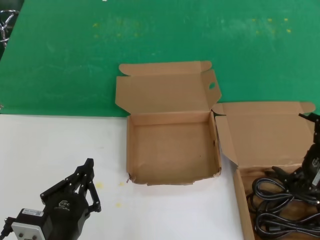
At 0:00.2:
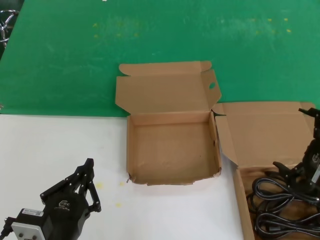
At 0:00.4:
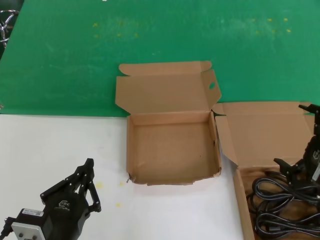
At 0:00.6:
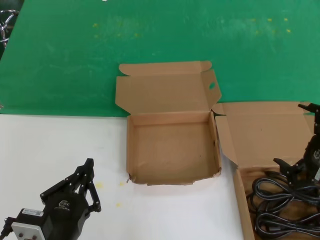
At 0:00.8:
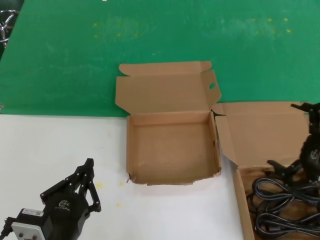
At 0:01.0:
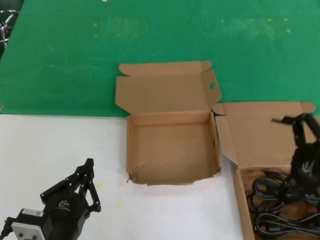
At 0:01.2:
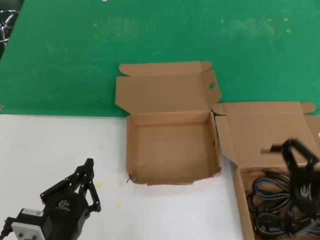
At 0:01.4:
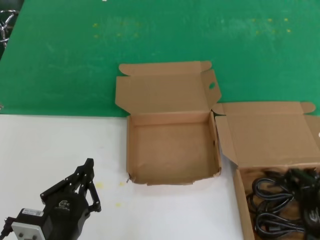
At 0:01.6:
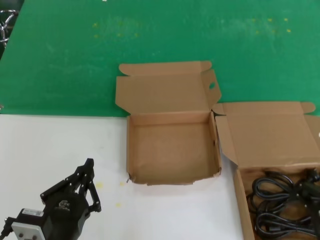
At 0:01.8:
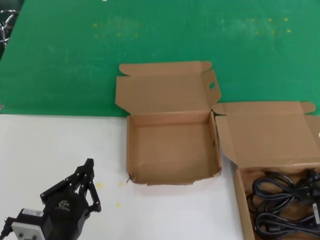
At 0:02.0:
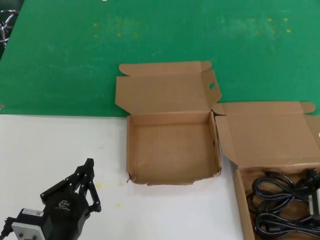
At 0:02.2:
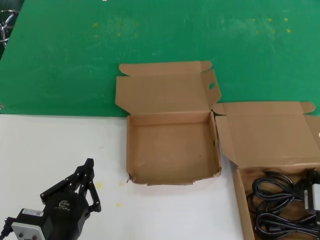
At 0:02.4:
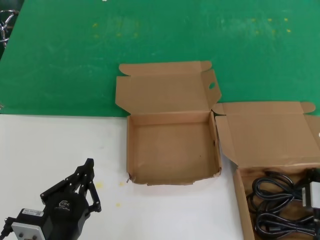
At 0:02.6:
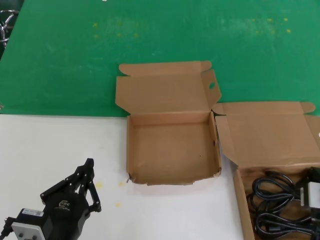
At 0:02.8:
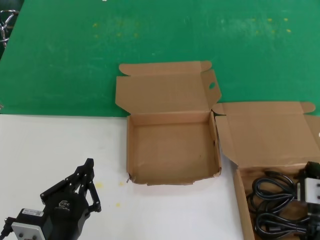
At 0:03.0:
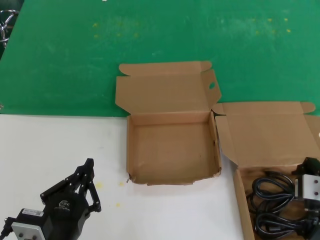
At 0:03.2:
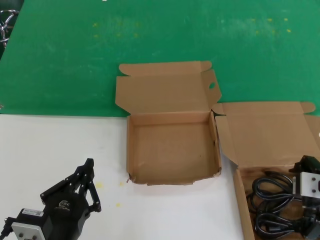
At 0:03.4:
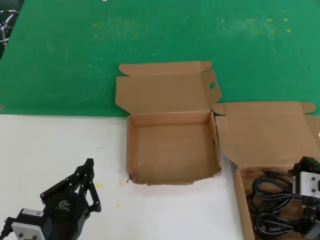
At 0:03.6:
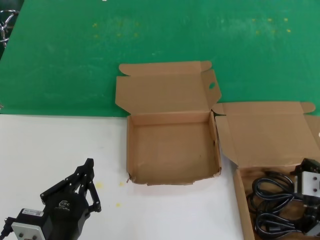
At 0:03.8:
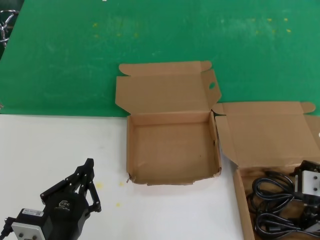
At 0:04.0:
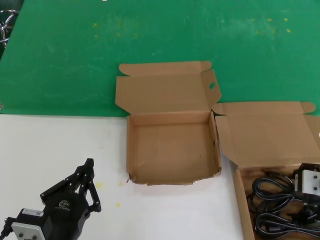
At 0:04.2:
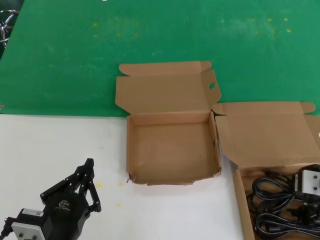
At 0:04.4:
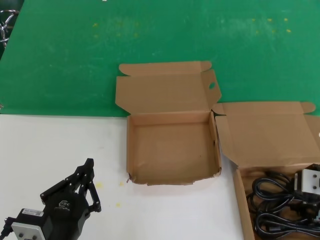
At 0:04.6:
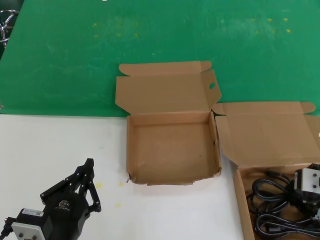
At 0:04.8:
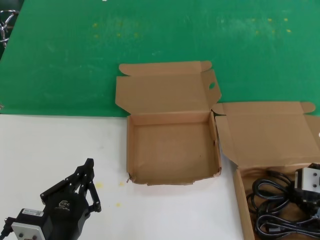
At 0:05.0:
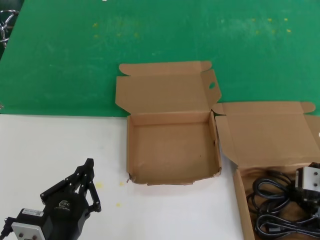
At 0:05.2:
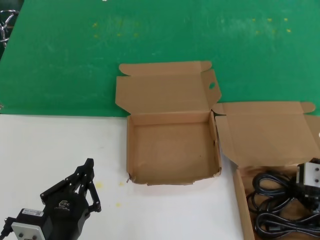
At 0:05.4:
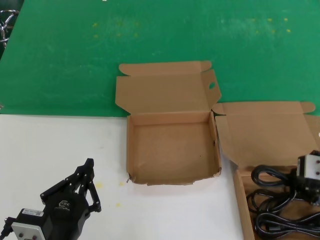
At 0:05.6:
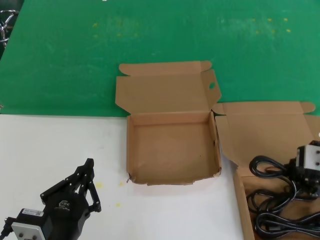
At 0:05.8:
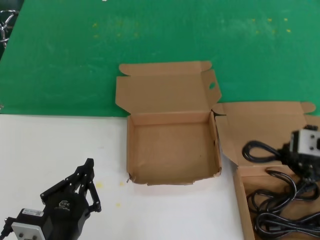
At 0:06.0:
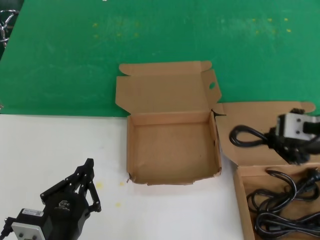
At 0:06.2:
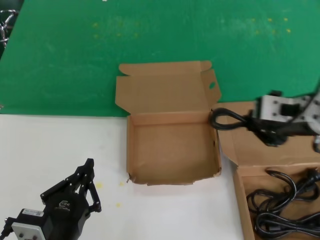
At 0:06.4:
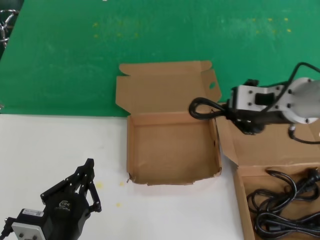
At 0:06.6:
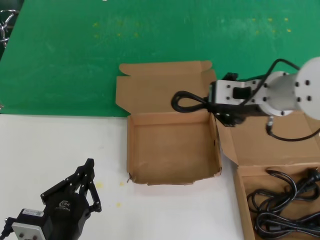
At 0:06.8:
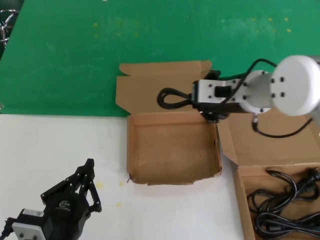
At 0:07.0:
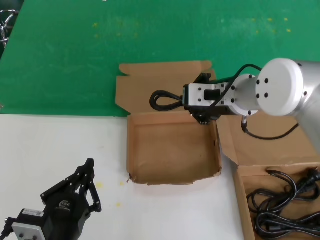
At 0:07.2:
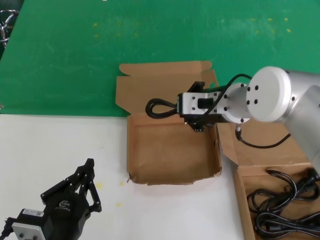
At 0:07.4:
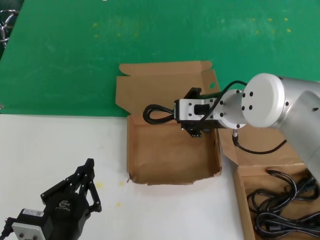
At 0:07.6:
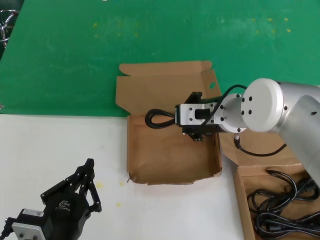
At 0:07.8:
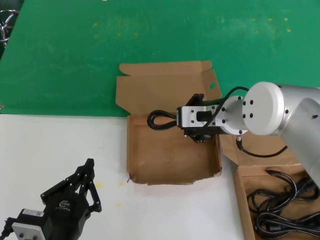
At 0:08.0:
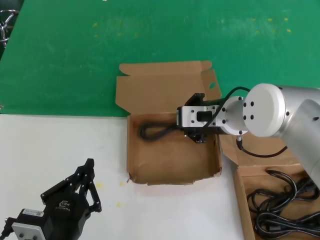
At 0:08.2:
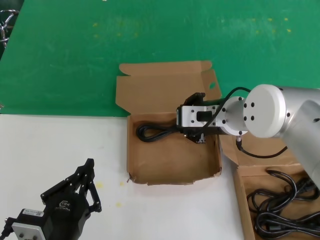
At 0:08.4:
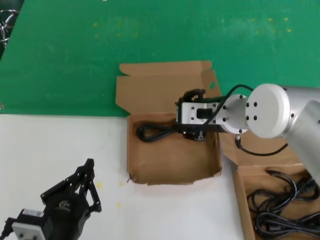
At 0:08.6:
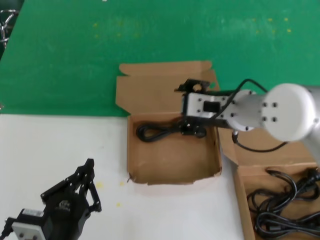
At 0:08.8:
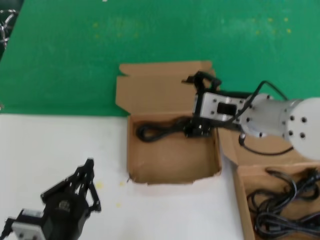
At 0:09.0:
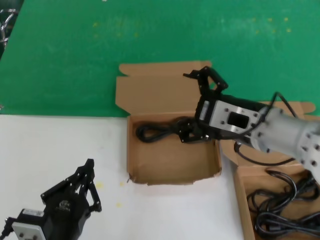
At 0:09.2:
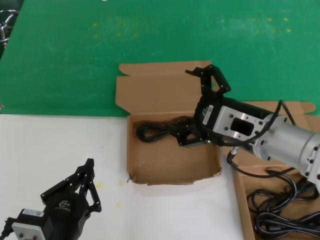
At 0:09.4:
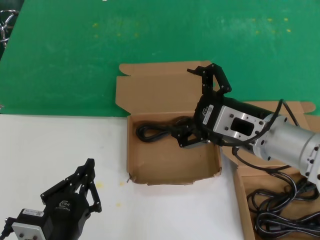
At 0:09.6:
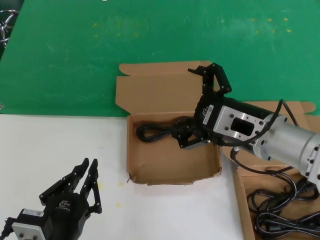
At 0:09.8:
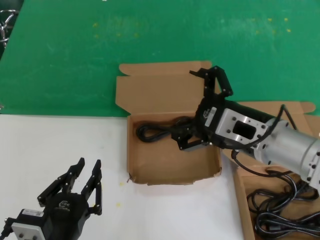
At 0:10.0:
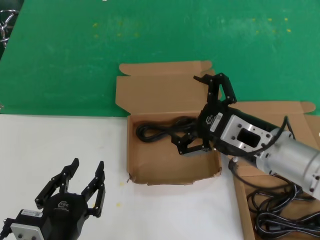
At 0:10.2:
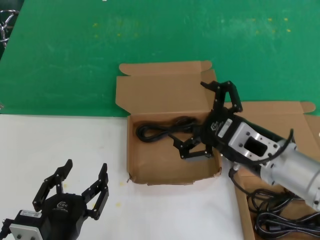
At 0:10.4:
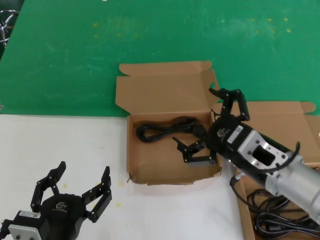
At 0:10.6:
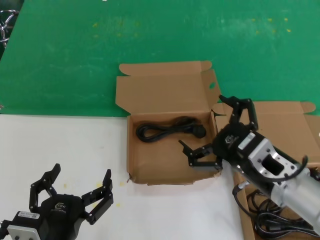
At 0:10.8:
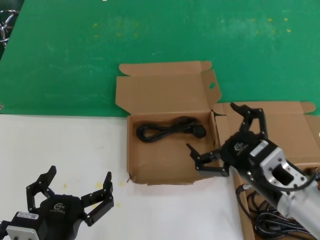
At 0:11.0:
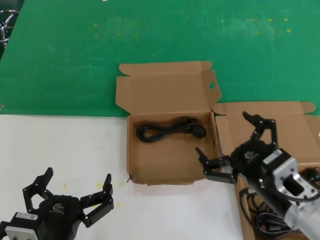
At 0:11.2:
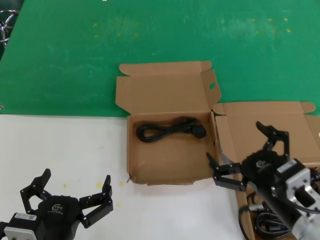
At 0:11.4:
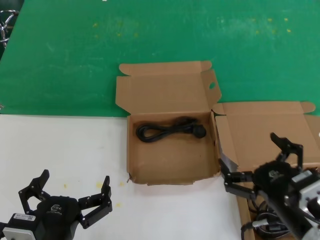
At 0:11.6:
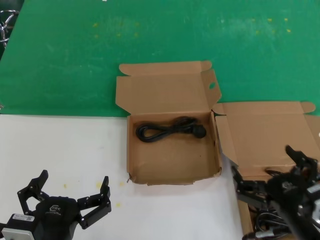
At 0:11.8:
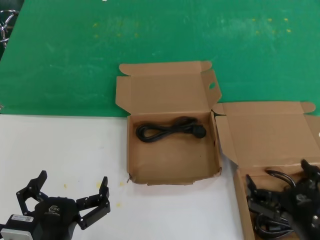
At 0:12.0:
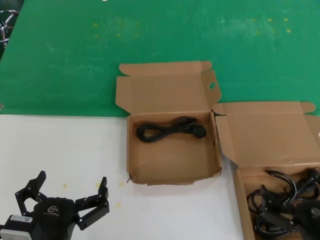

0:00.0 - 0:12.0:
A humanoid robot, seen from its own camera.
Task of the whole recording: take the parts from the box containing them and put them into an empty box.
Step, 0:00.0 - 0:04.8: Grasp the data cable.
Step, 0:05.0 - 0:08.2: Place the data cable in the another box.
0:00.0 - 0:01.6: The right hand travels upward by approximately 5 cm.
0:03.0 - 0:04.4: The hands move only a little.
0:04.4 - 0:06.0: The right hand travels upward by roughly 10 cm.
0:06.0 - 0:07.6: The right hand shifts approximately 20 cm to the left and forward.
0:07.6 - 0:09.0: The right hand heads backward, covering roughly 10 cm.
0:09.0 - 0:10.4: The right hand heads downward, covering some 5 cm.
0:10.4 - 0:12.0: The right hand heads downward, backward and to the right, covering approximately 20 cm.

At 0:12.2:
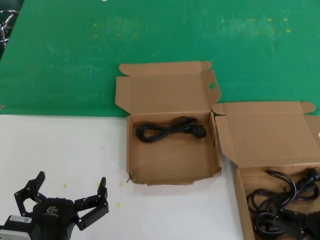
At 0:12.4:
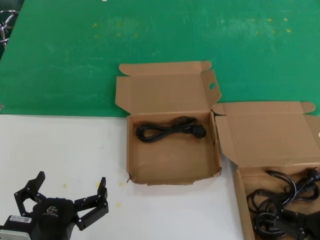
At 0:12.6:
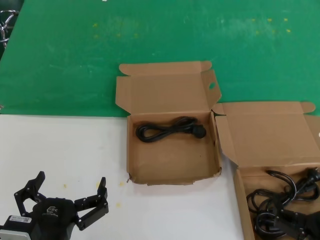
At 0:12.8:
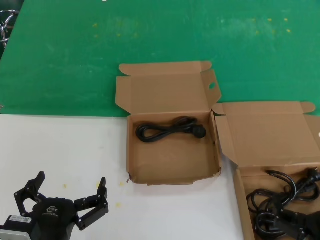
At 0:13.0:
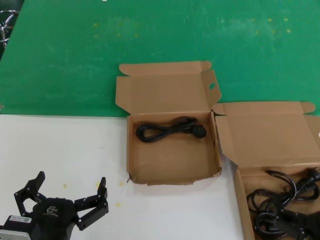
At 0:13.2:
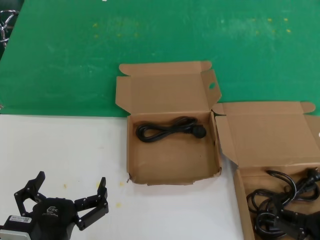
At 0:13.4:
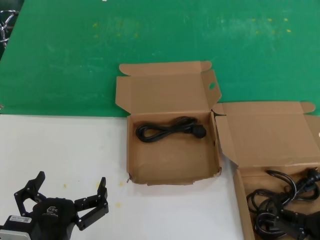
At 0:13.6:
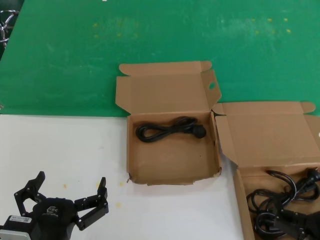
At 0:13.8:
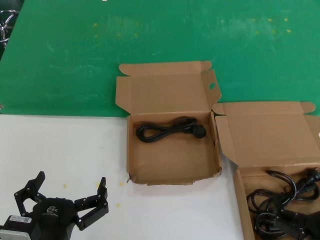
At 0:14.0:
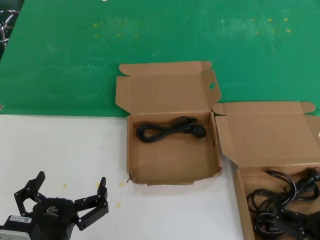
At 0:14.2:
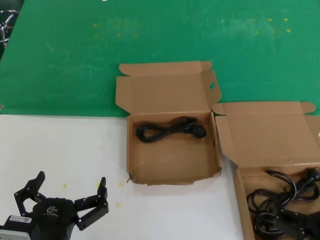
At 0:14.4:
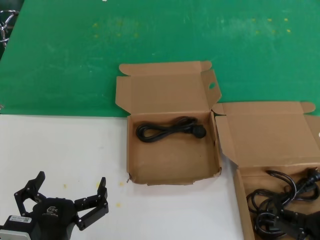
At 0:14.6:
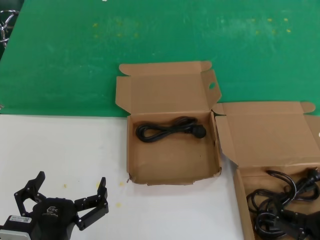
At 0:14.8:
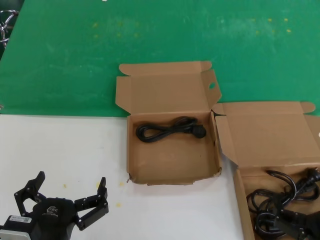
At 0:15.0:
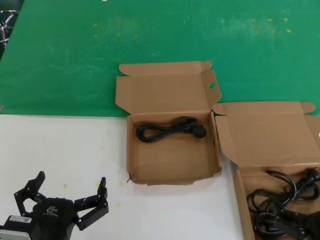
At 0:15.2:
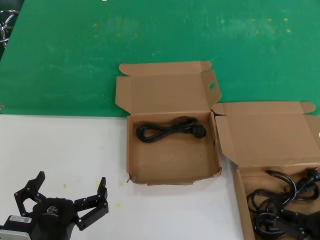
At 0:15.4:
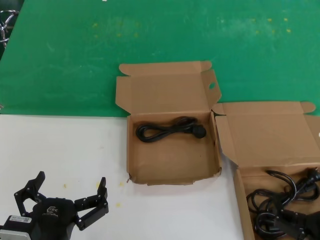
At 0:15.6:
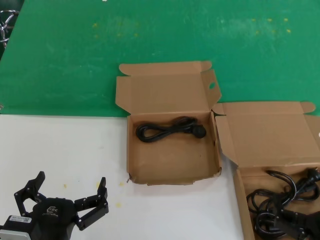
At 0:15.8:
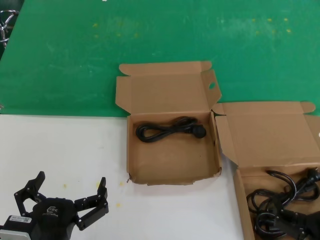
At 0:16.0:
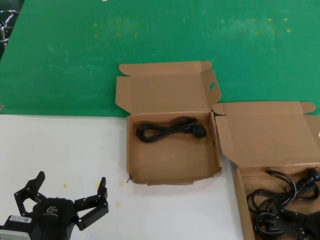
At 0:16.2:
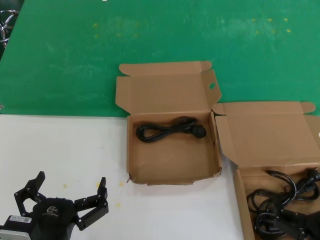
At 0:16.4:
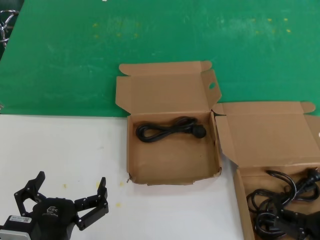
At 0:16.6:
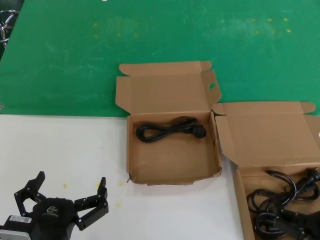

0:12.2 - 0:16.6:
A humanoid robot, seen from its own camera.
Task of the whole recording: take the parts from the box containing them and put them into an empty box.
0:12.2 - 0:16.6: The two hands keep their place.
